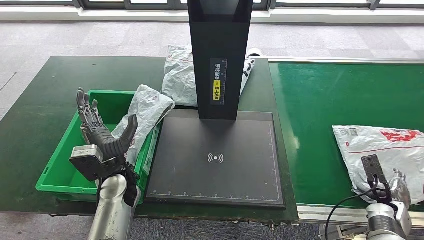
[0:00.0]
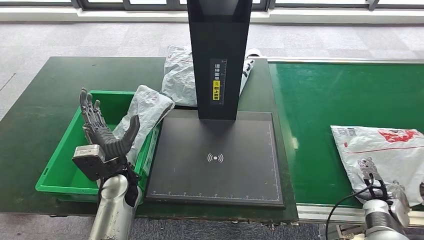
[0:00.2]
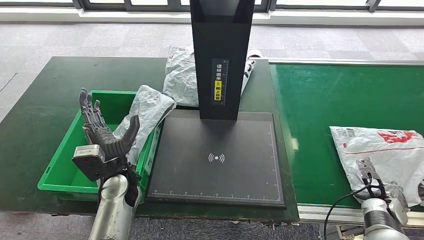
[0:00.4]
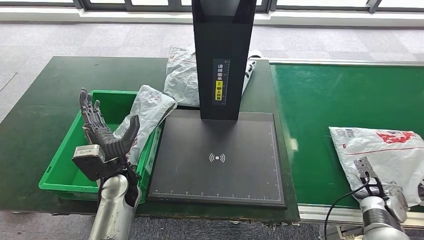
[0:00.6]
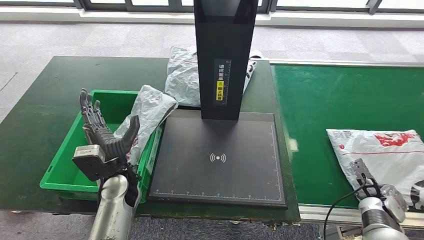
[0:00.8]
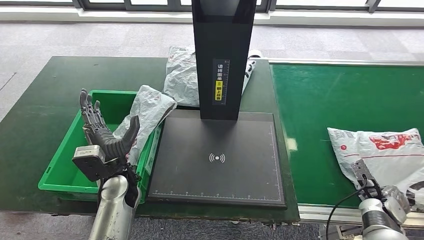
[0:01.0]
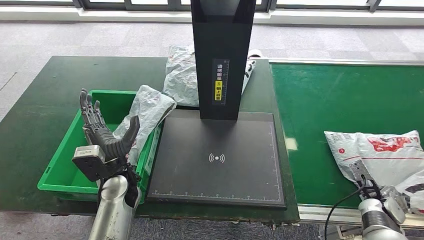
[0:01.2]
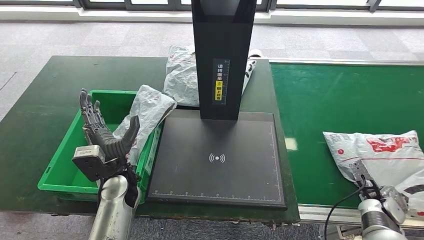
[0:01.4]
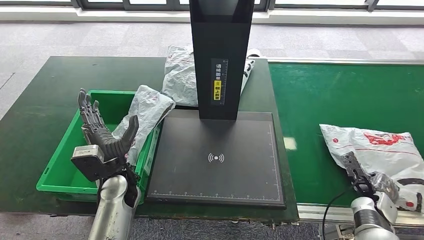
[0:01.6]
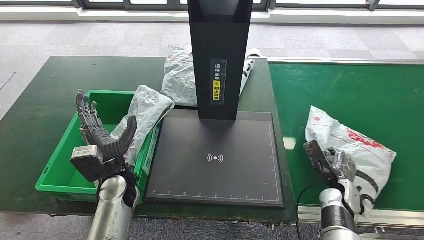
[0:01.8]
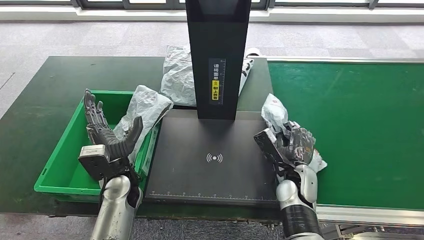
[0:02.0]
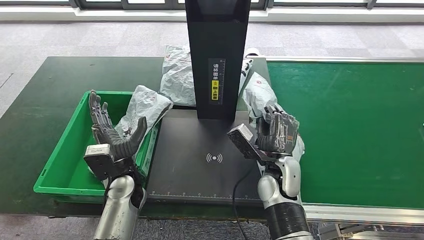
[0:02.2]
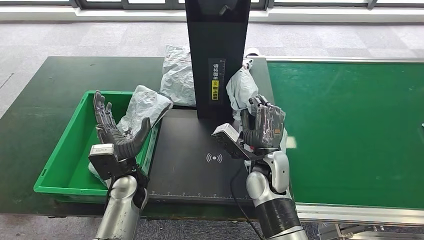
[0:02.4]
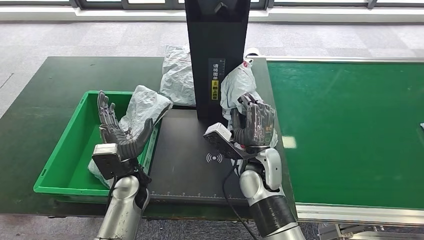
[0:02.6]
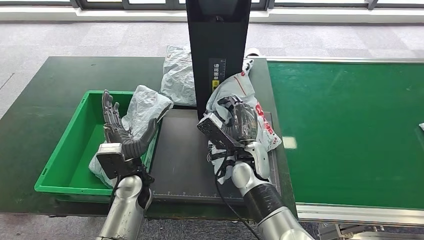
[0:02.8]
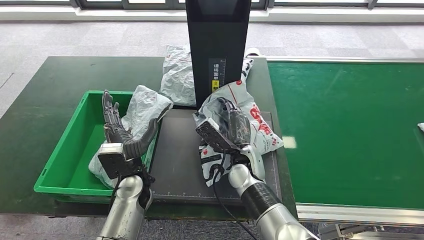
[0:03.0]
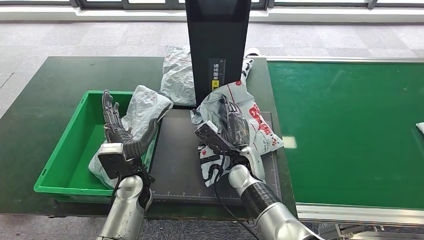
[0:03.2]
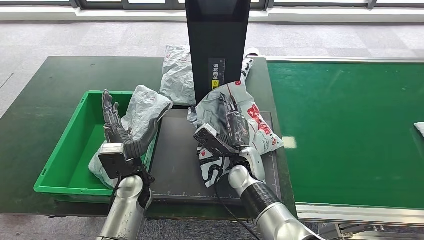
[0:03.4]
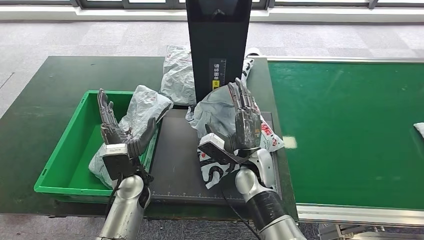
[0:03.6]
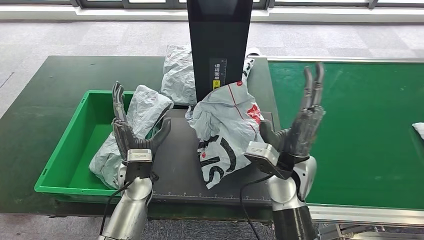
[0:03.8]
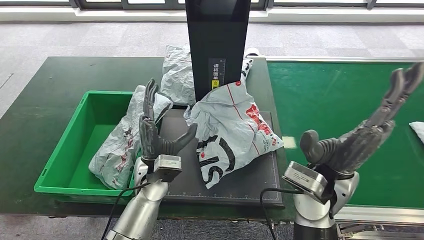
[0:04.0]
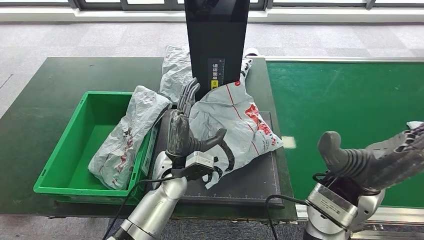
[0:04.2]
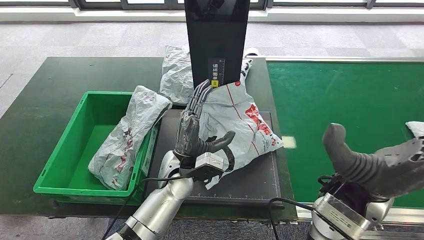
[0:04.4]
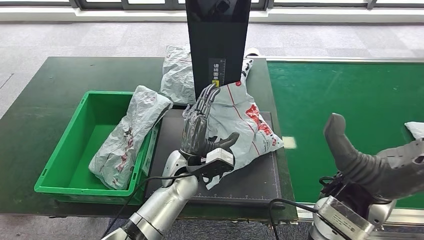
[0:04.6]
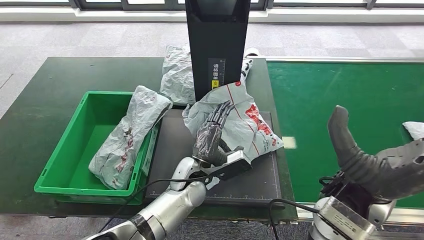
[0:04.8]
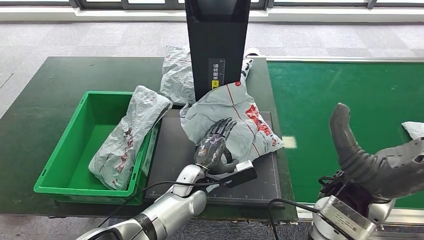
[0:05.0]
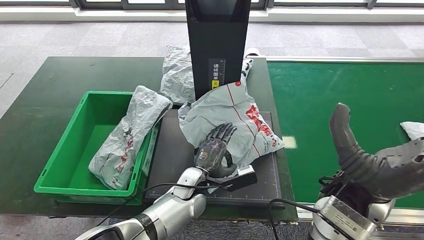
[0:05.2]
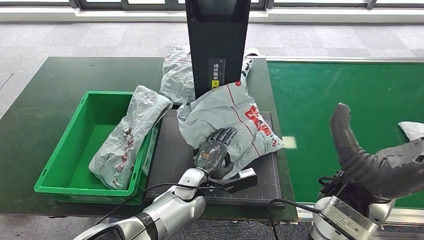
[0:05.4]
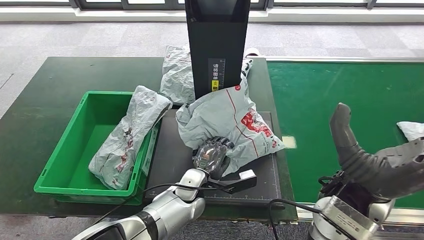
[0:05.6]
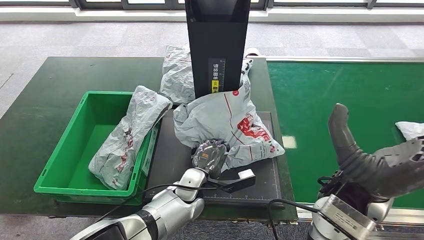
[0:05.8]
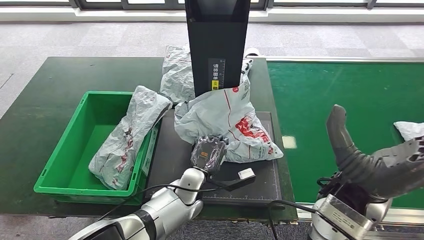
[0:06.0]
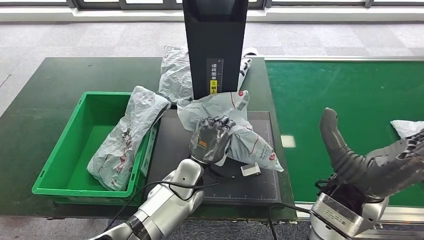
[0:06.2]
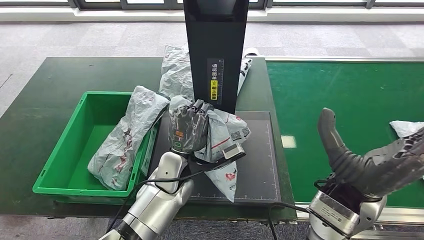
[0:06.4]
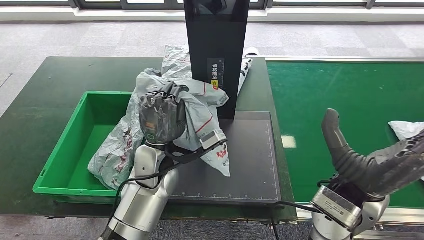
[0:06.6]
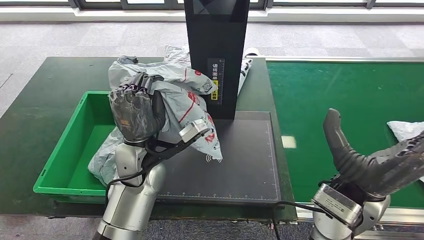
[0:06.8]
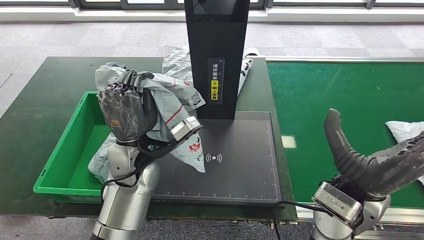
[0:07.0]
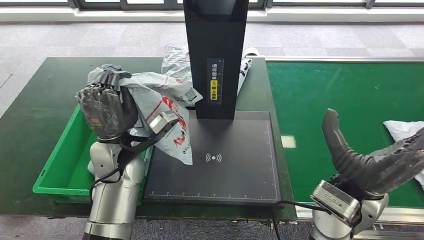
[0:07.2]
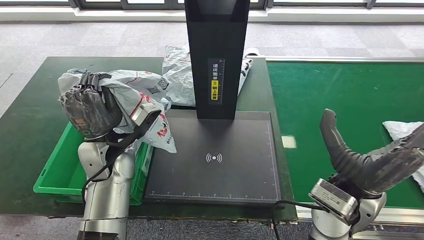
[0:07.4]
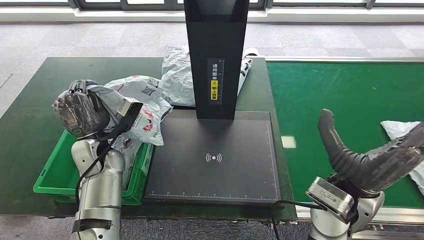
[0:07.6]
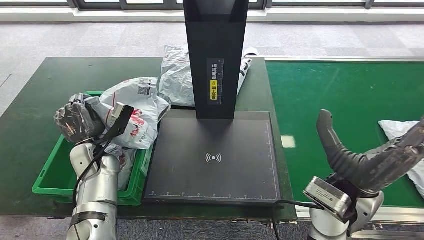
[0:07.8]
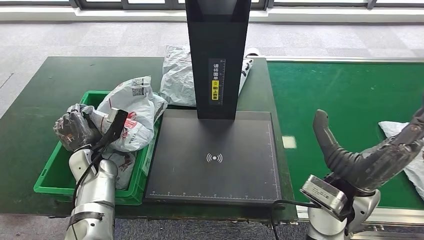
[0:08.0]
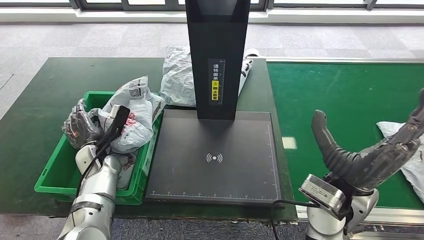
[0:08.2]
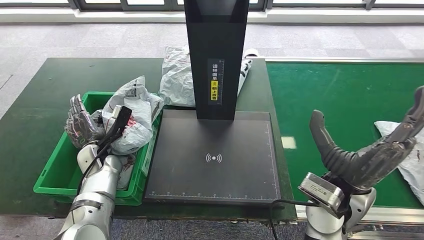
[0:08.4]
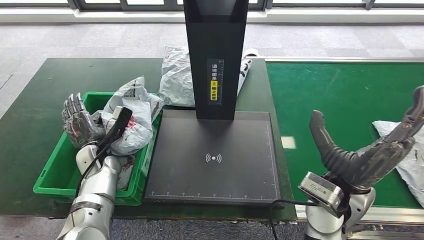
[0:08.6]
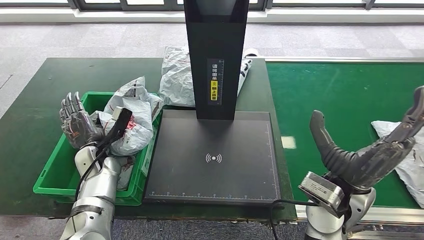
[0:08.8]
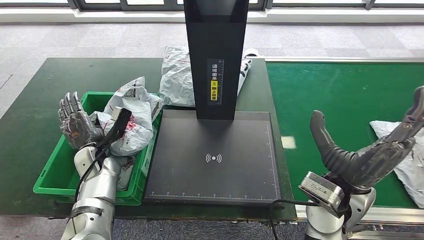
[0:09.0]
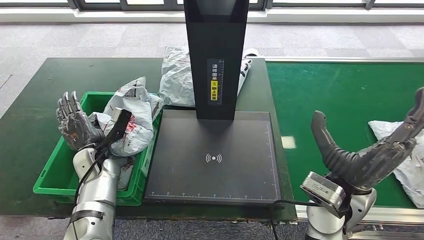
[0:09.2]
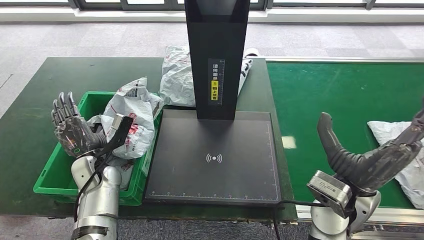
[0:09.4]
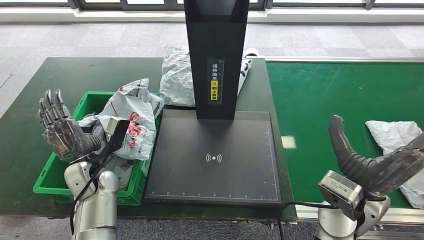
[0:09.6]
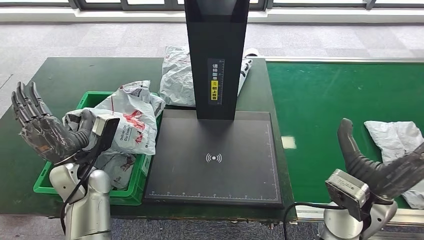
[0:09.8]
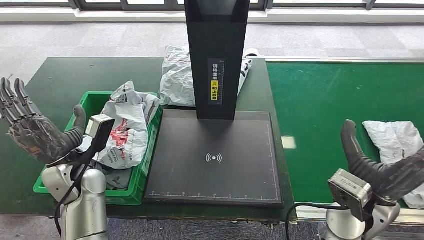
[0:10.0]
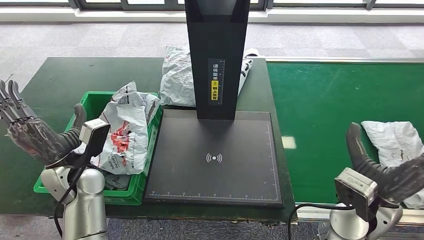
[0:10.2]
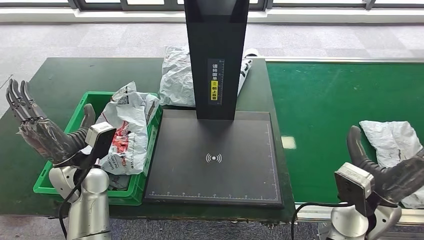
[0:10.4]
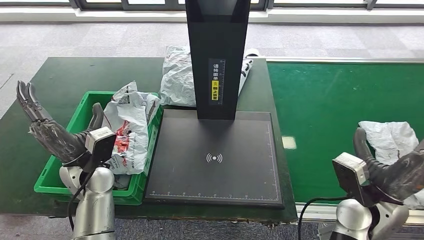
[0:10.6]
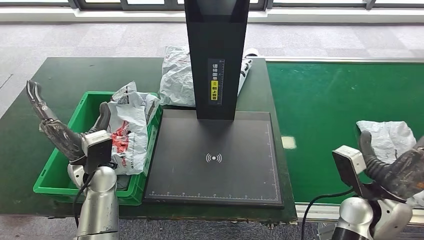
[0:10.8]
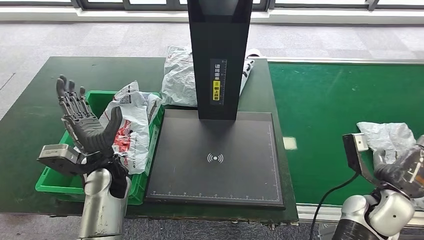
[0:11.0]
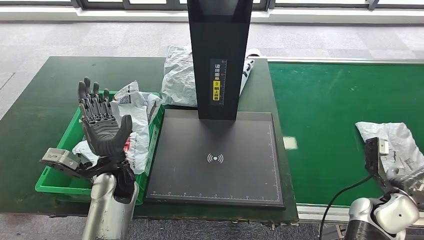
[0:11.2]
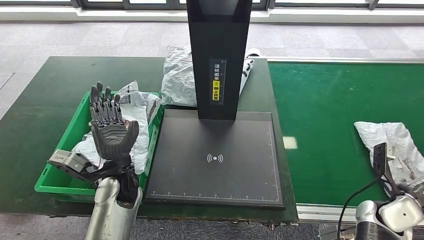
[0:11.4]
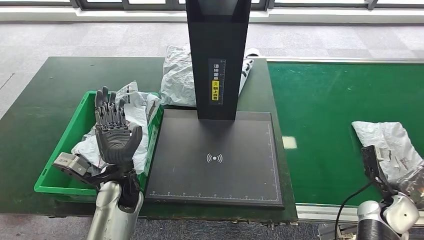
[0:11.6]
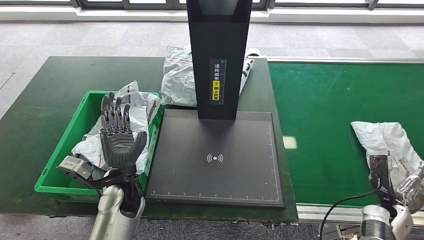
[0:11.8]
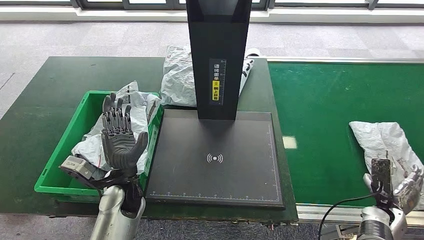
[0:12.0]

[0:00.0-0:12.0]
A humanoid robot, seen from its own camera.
Step, 0:00.0 to 0:02.0: Pick up the parcel from the conveyor belt.
Step, 0:02.2 to 0:04.8: Place the parcel onto the inbound machine.
Step, 0:05.0 to 0:07.0: Pick up the parcel from the inbound machine.
Step, 0:07.2 to 0:09.2: Place the parcel into the delivery box.
0:04.4 to 0:06.0: The left hand heads downward, covering roughly 5 cm.
0:07.6 to 0:09.0: The left hand goes roughly 10 cm downward.
0:09.0 to 0:10.4: The left hand goes some 10 cm upward and backward; the right hand travels to the right by about 5 cm.

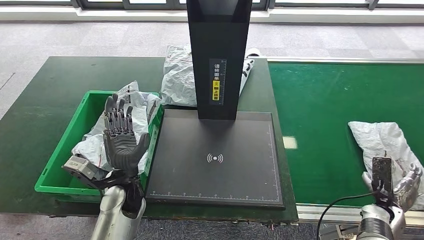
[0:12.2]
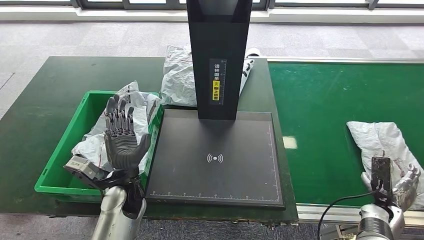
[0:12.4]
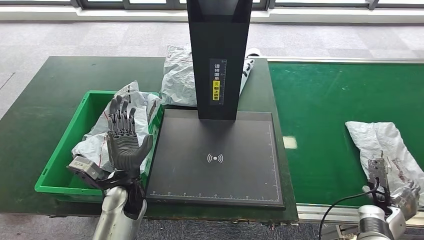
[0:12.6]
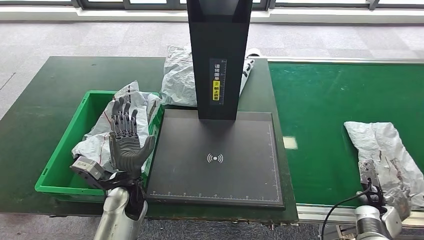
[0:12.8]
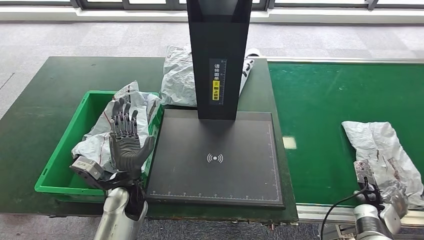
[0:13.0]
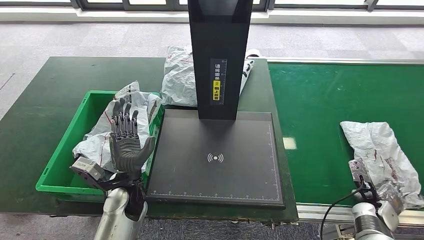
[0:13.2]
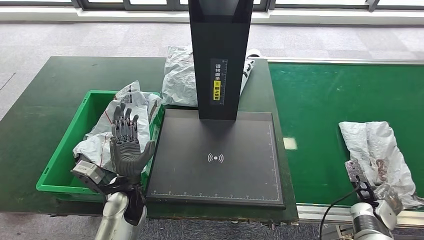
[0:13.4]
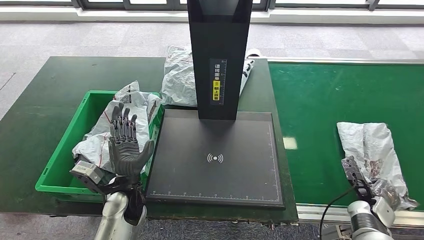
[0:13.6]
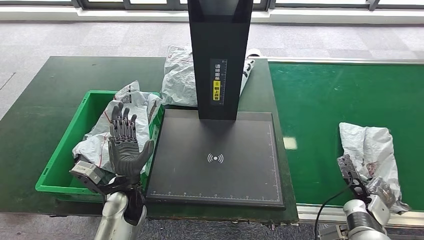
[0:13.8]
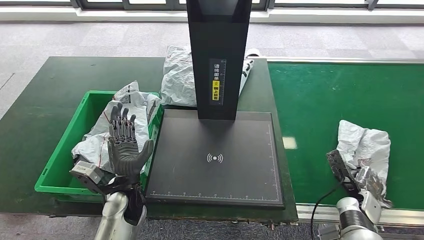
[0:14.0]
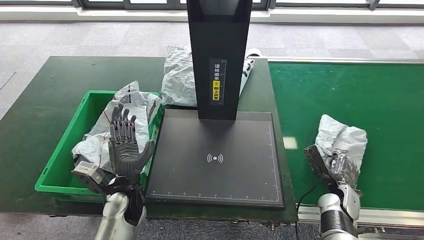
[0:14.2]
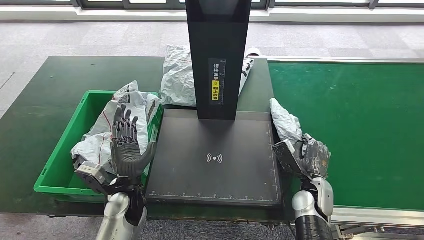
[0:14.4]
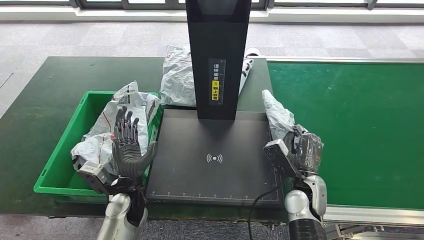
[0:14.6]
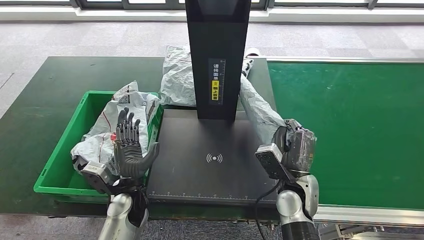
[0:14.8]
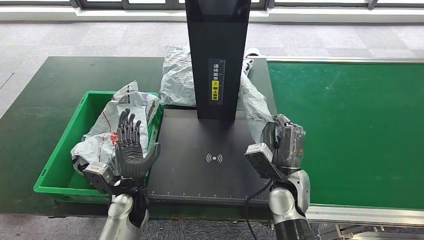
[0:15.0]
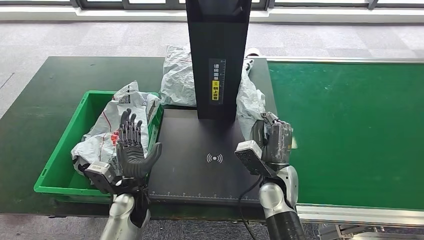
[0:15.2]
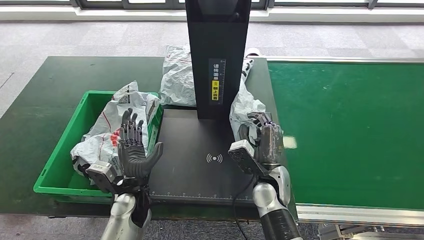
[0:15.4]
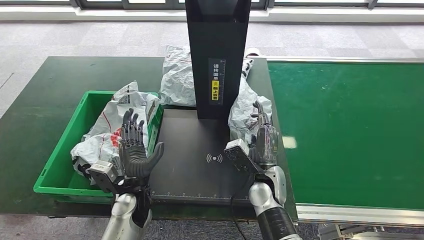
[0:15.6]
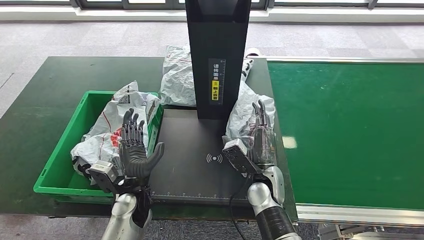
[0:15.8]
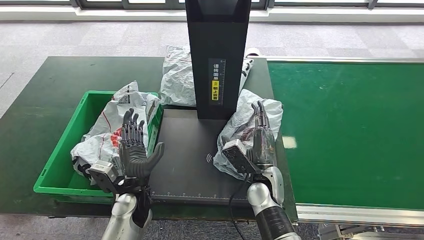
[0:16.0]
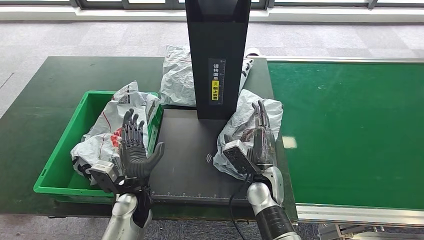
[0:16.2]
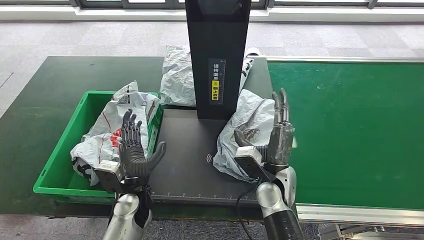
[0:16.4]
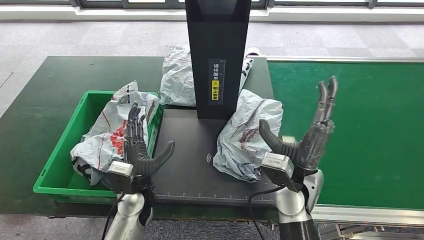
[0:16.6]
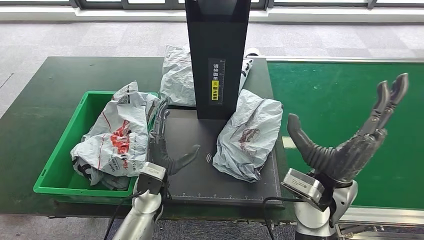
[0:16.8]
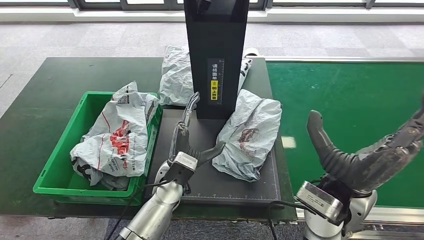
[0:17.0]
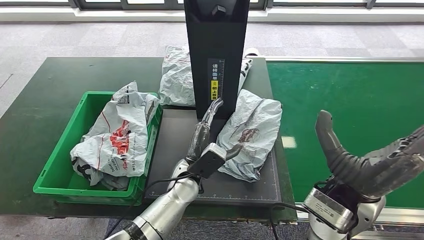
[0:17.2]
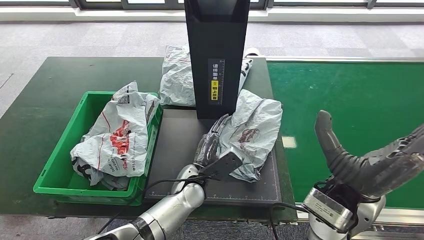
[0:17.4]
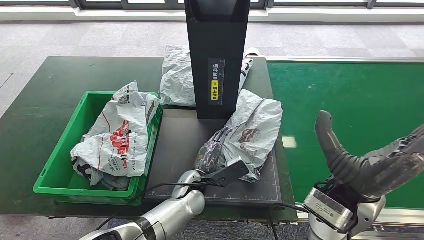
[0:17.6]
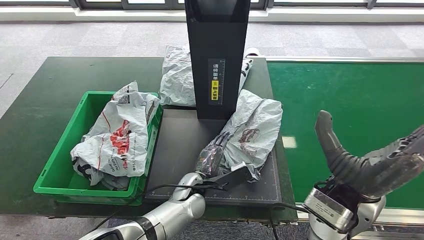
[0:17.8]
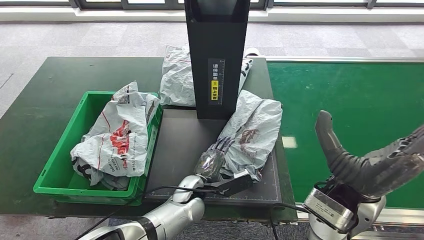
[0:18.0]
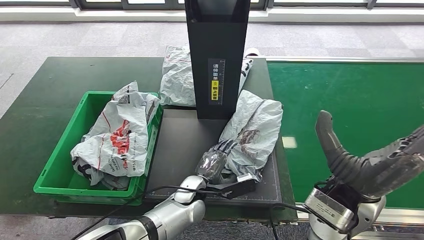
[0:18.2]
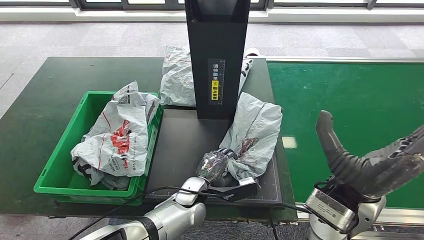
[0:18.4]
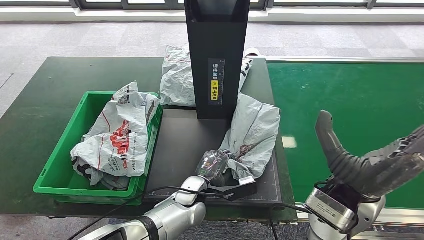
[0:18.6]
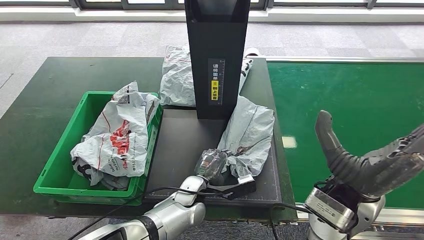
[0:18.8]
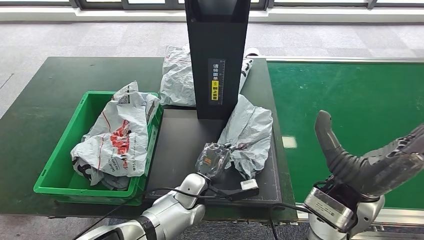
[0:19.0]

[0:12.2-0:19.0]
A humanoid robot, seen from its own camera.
Step, 0:12.2 to 0:14.8: Pick up the parcel from the conveyor belt.
Step, 0:15.0 to 0:16.6: Place the parcel onto the inbound machine.
0:15.0 to 0:16.2: The right hand heads to the left, covering some 5 cm.
0:16.2 to 0:17.6: The right hand moves upward and to the right, approximately 20 cm, while the left hand is displaced to the right by about 15 cm.
